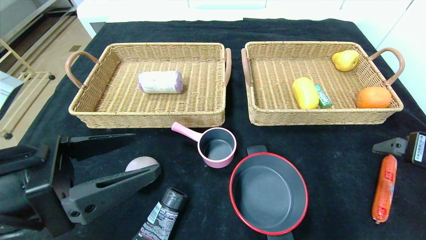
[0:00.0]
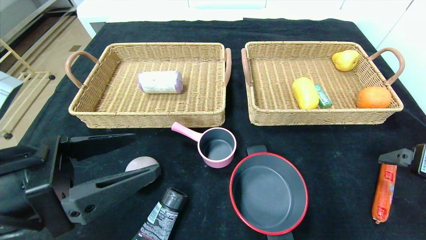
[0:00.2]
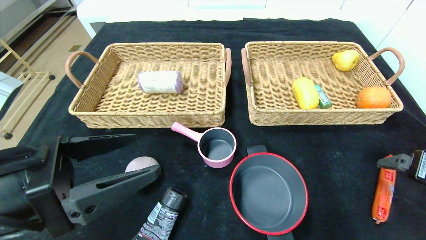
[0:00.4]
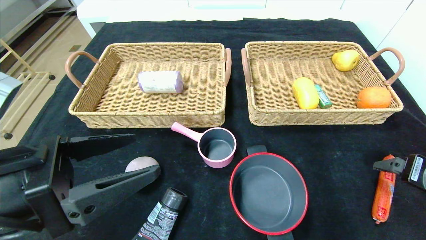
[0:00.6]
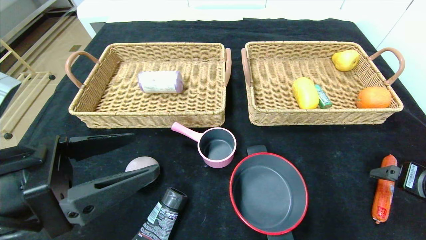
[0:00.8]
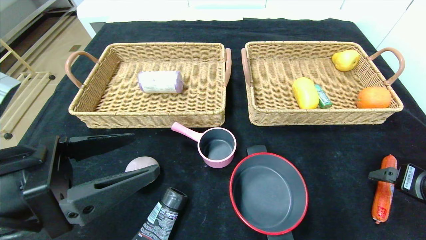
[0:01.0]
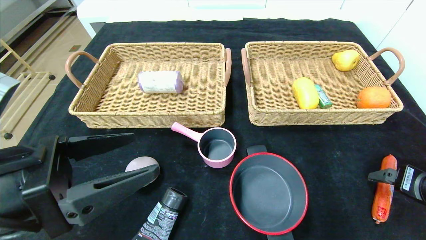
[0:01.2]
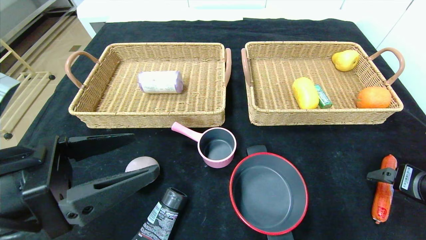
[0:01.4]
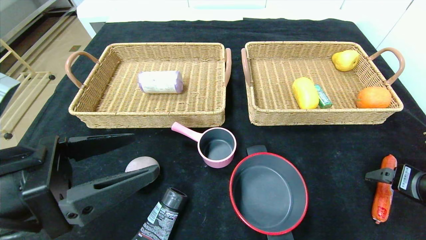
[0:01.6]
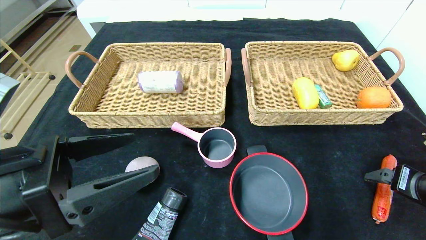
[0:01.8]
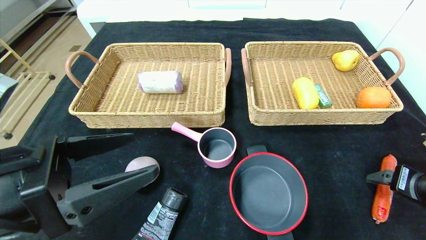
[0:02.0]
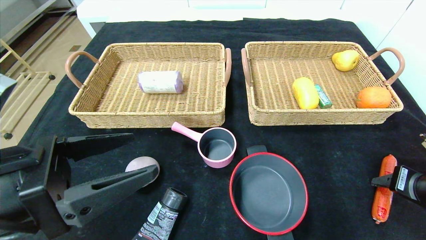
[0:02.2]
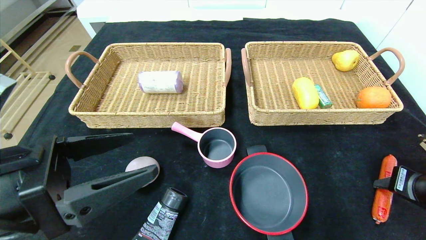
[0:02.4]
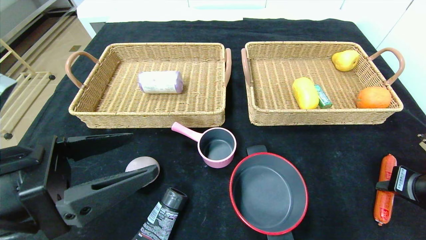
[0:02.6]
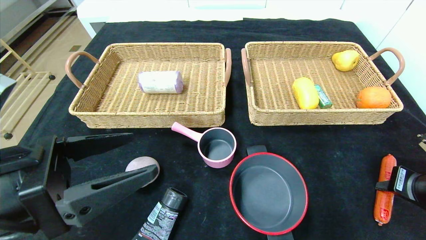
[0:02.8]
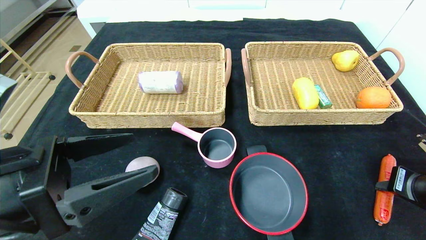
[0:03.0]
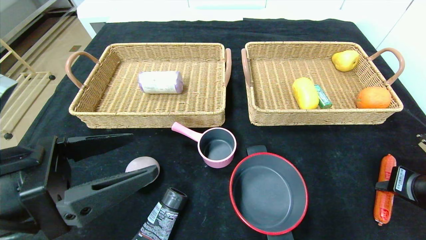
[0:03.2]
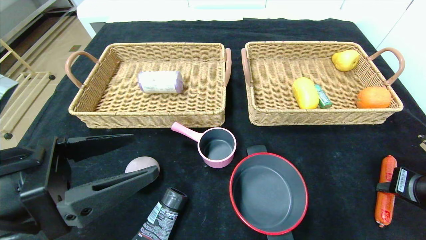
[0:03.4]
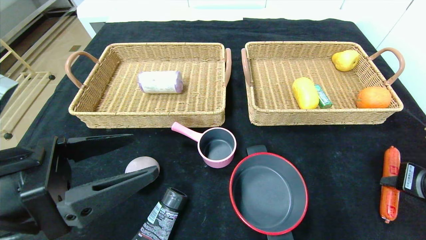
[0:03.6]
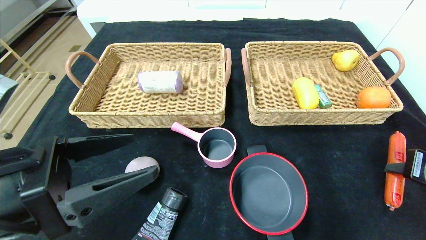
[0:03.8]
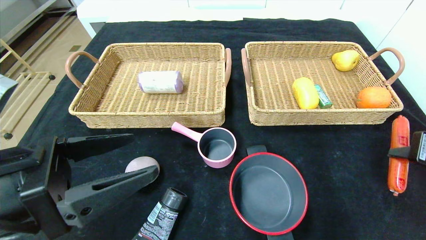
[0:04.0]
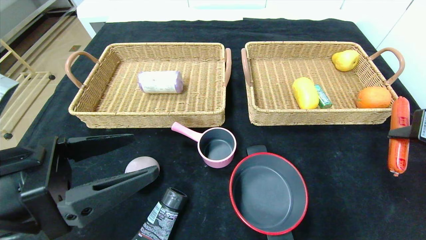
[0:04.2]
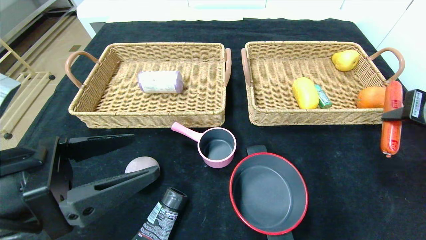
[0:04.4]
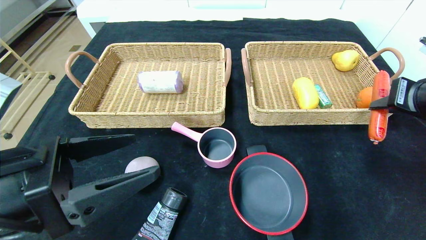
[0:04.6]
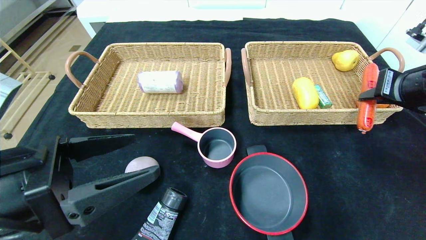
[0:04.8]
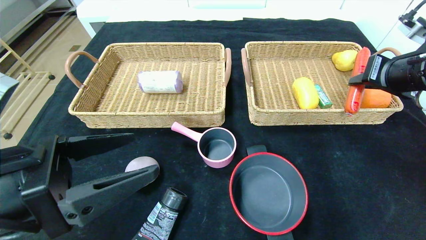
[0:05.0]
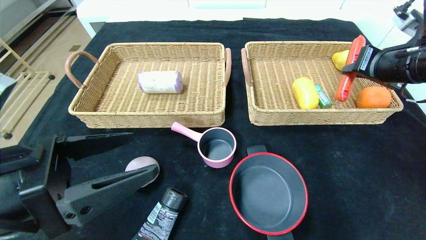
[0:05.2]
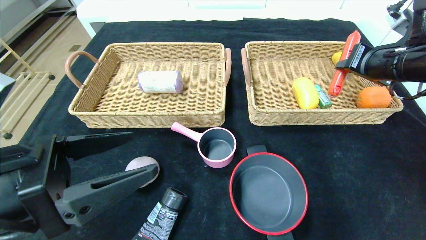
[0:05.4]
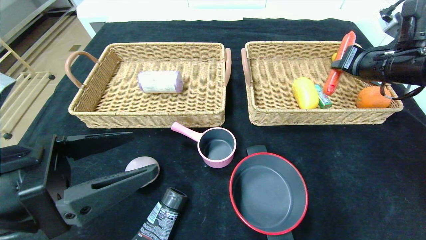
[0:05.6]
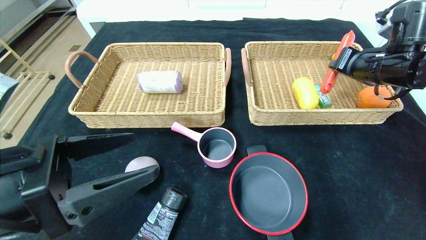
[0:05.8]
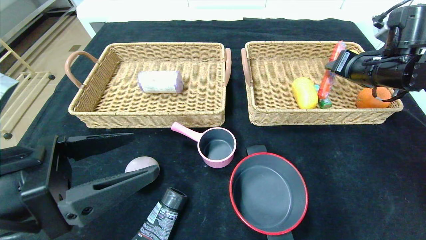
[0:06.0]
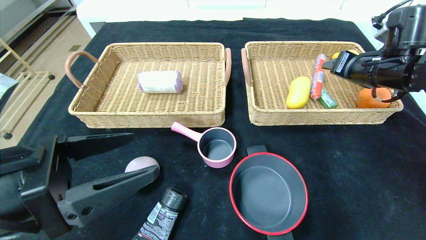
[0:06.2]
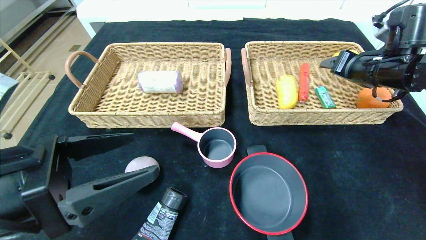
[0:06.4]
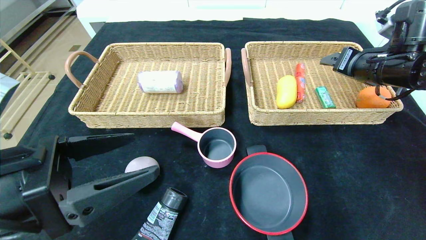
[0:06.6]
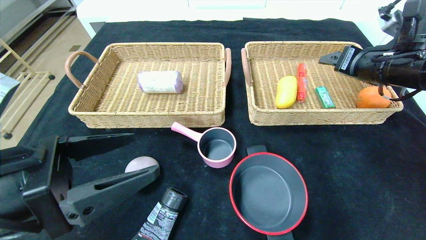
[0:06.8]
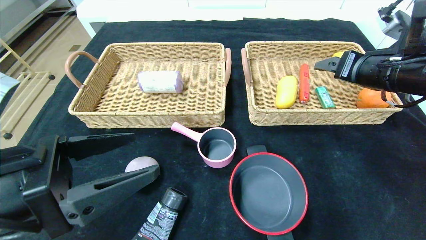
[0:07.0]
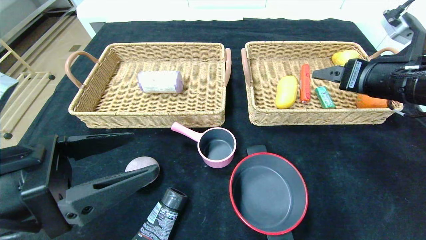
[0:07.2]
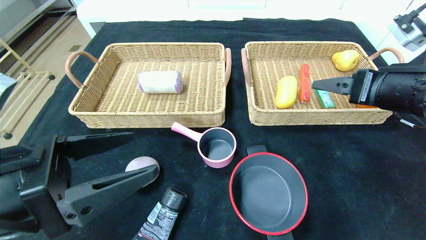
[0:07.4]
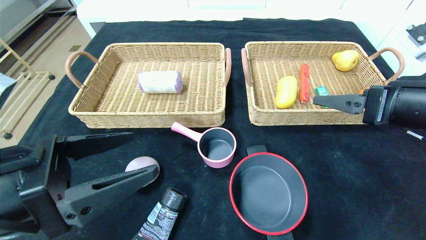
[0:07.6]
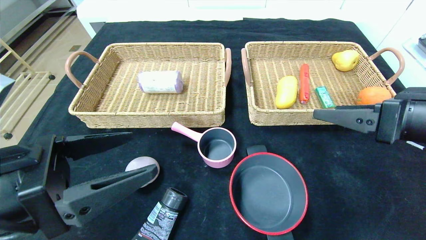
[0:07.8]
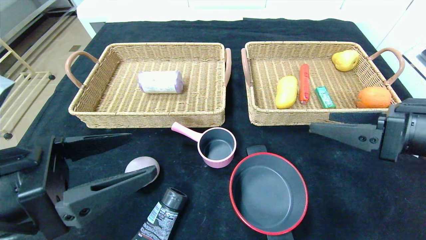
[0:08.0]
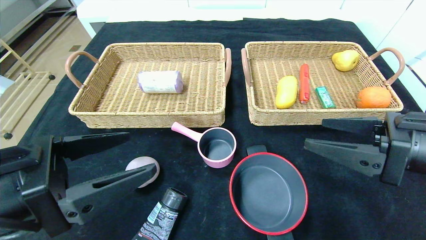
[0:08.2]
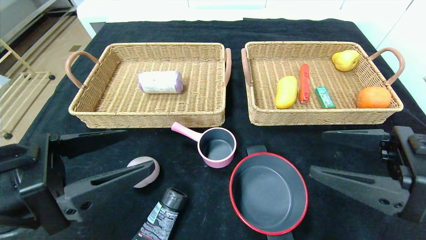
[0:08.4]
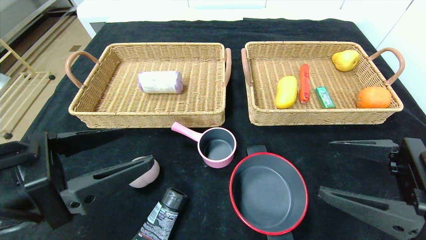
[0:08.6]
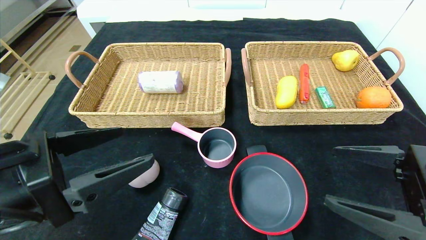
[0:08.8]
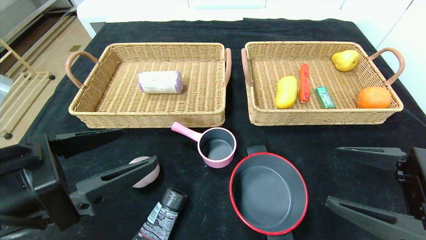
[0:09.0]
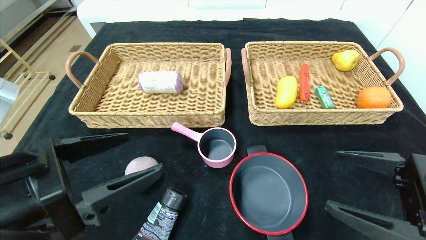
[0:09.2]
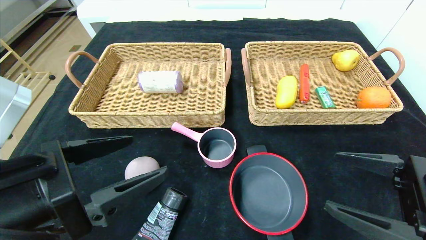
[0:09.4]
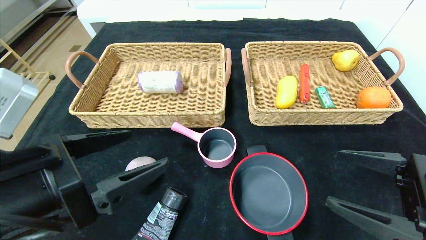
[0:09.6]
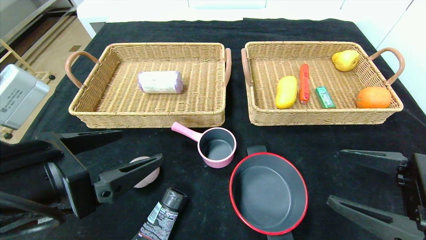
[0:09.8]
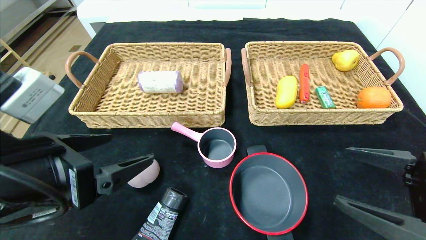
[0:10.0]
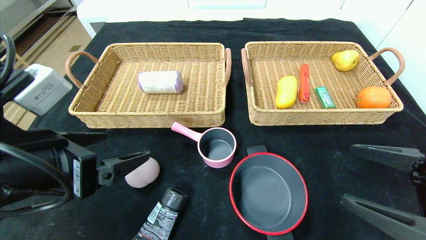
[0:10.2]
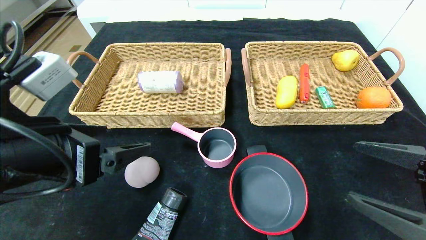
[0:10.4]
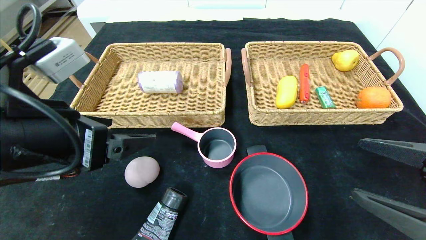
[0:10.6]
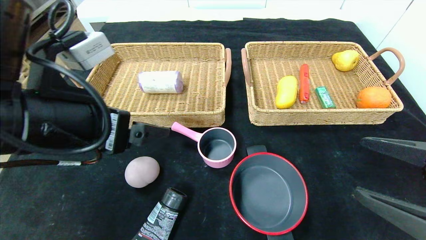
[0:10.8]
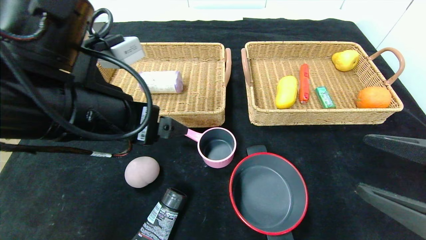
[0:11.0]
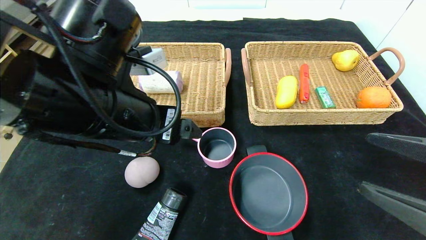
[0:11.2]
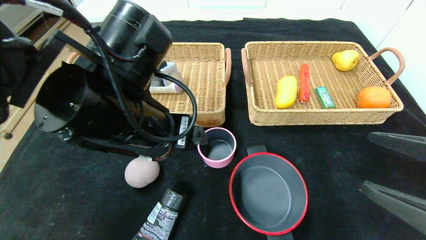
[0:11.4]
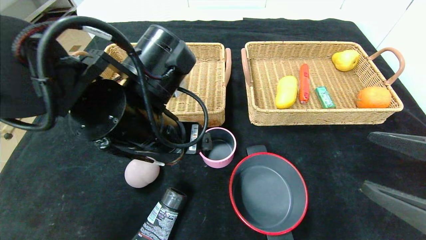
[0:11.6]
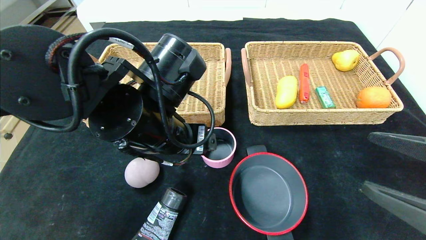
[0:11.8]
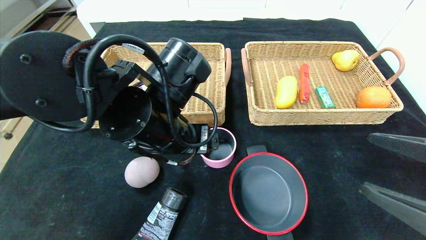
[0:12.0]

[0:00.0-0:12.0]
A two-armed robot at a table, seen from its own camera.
Step, 0:00.0 to 0:06.0: Grasp the sausage and put it in the right basket.
0:00.0 to 0:01.6: The right gripper travels downward by about 5 cm.
0:01.6 to 0:03.0: The right gripper closes its fingers.
0:03.0 to 0:04.4: The right gripper travels upward by some 15 cm.
0:04.4 to 0:06.0: The right gripper is displaced forward by roughly 15 cm.
0:06.0 to 0:07.6: The right gripper is displaced backward by some 15 cm, and opens.
0:07.6 to 0:09.0: The right gripper is displaced backward and downward by approximately 10 cm.
0:10.4 to 0:12.0: The left gripper moves to the right and forward, about 15 cm.

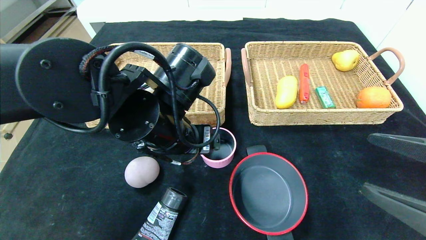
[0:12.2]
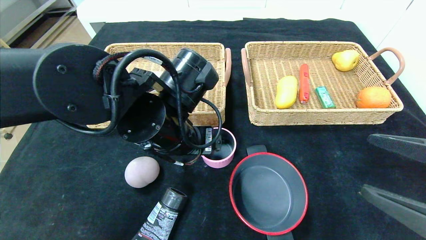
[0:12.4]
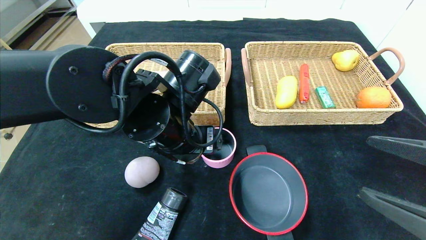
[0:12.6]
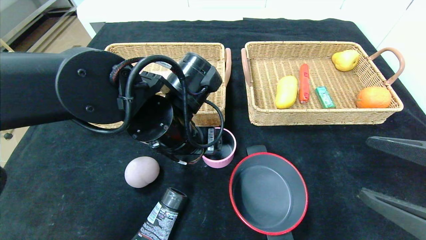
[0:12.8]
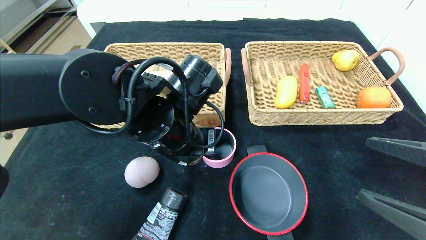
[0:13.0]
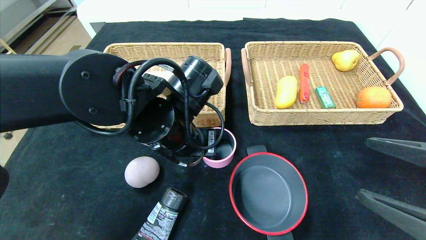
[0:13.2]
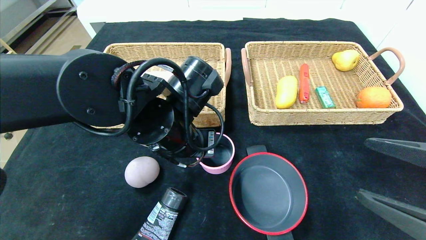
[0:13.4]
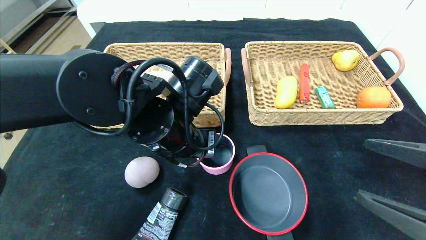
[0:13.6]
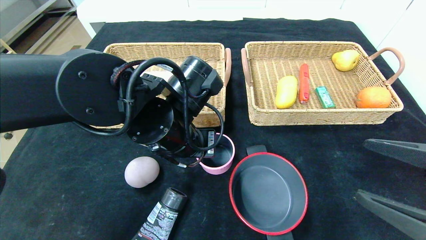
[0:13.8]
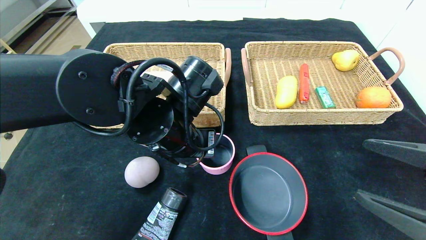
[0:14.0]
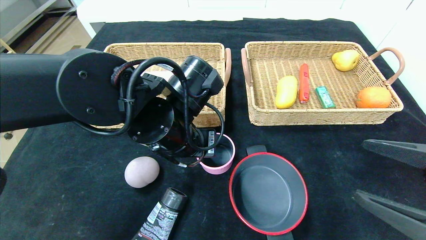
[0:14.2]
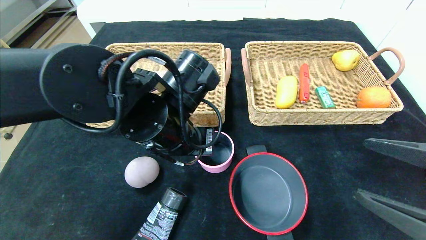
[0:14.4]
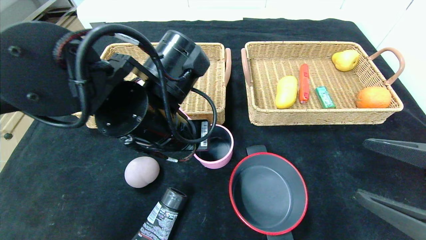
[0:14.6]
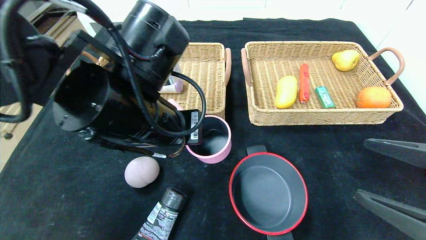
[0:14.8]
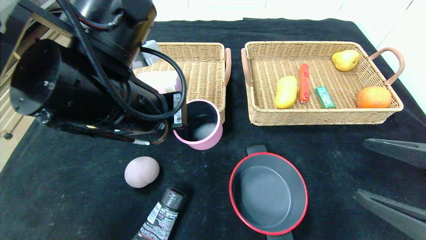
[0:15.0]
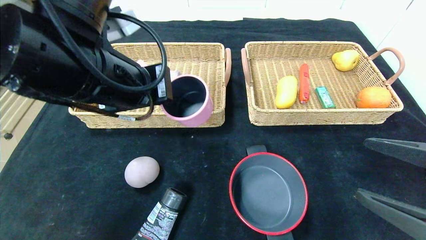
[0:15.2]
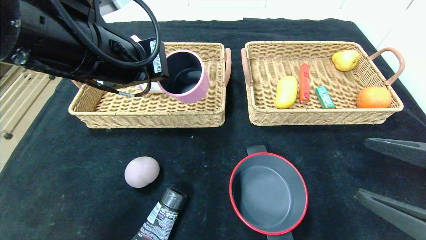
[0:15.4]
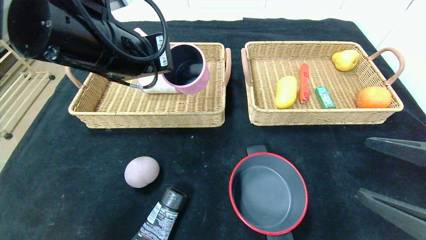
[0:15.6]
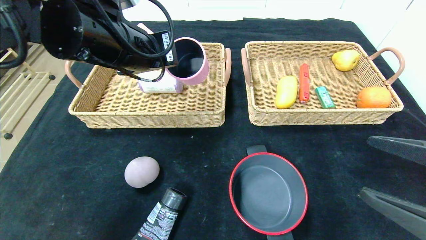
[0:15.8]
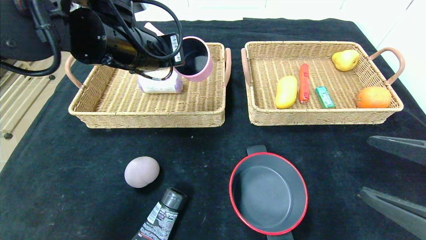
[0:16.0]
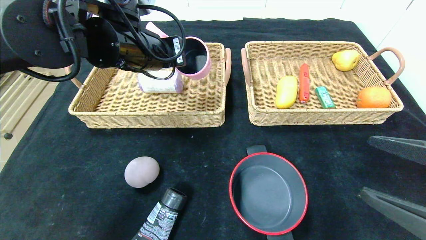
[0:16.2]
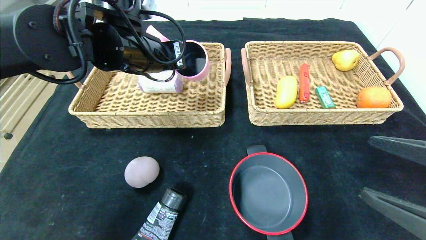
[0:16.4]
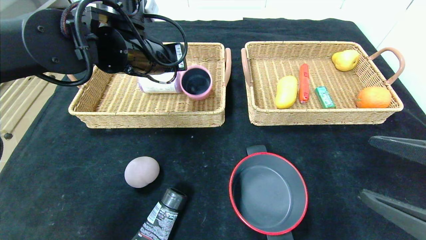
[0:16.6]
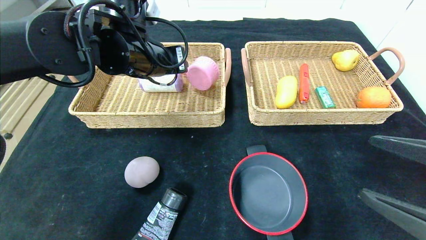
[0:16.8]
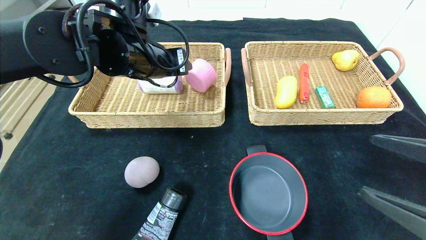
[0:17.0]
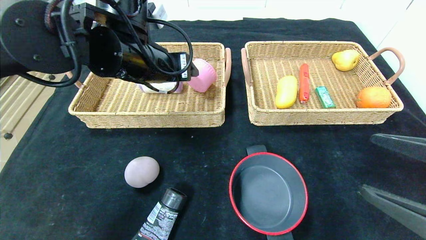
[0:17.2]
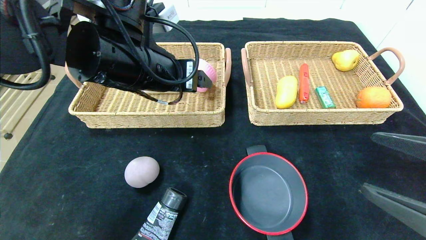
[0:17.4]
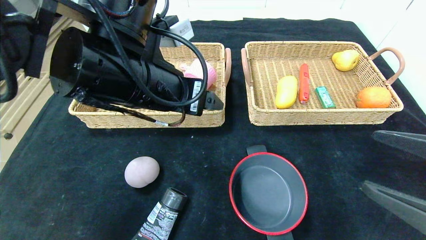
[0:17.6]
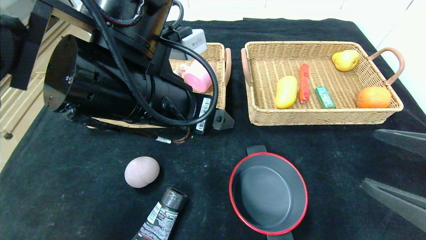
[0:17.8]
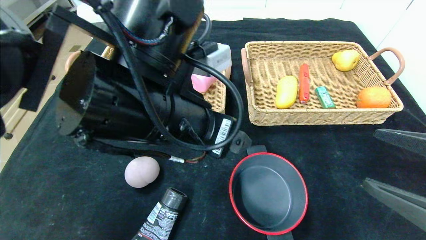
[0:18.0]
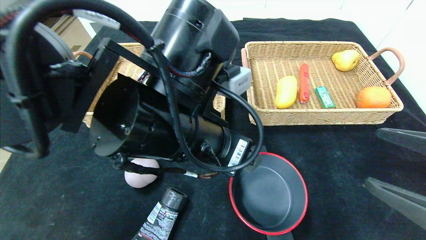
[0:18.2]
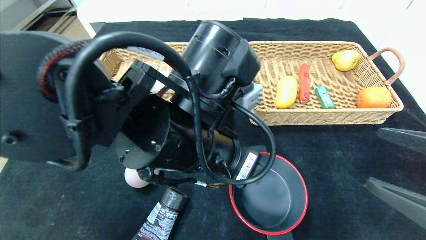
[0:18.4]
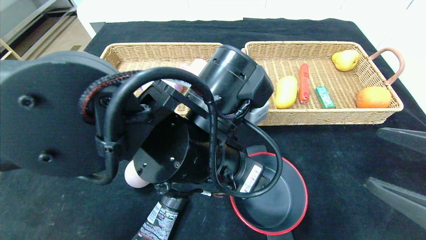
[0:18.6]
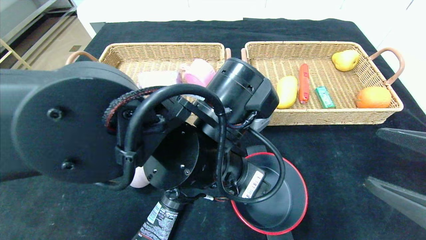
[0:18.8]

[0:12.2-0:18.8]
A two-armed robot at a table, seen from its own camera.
Step, 0:12.2 to 0:16.8: Grasp the pink pot and put it in the left basket.
0:12.2 to 0:13.8: The left gripper closes its fingers.
0:13.8 to 0:15.4: The left gripper moves upward and to the left, some 15 cm.
0:15.4 to 0:17.2: The left gripper goes about 10 cm forward, and opens up.
0:17.2 to 0:18.8: The left gripper heads backward, to the right and downward, covering approximately 20 cm.
